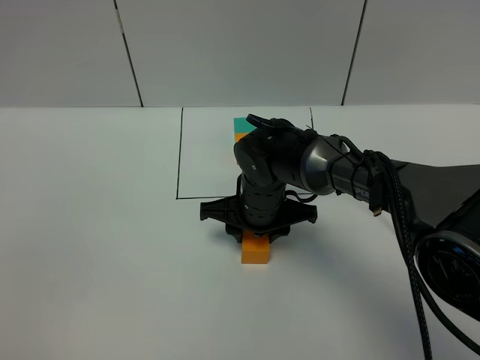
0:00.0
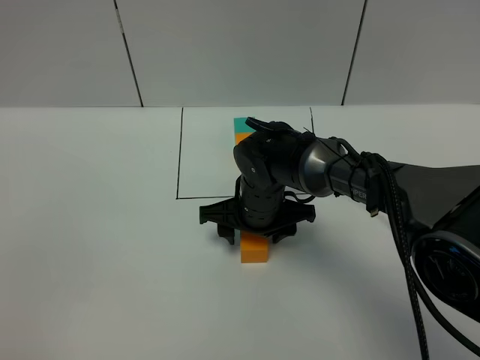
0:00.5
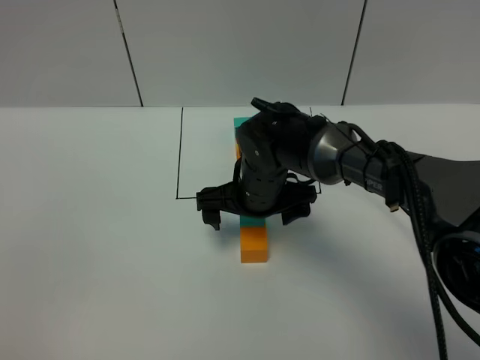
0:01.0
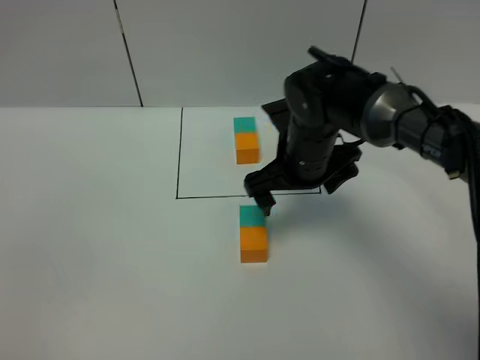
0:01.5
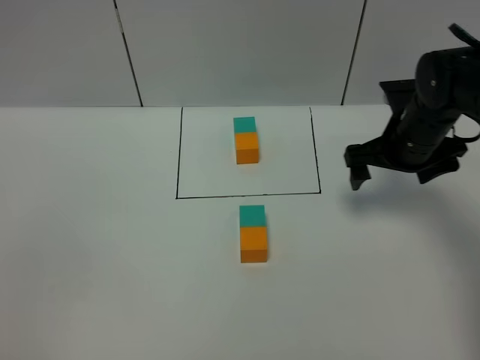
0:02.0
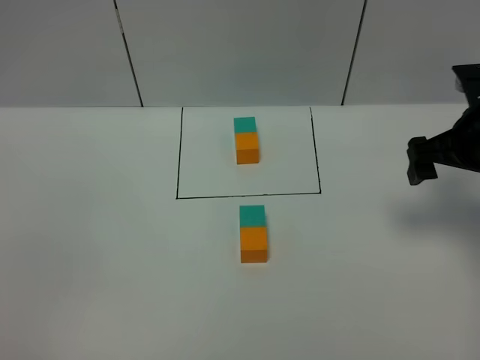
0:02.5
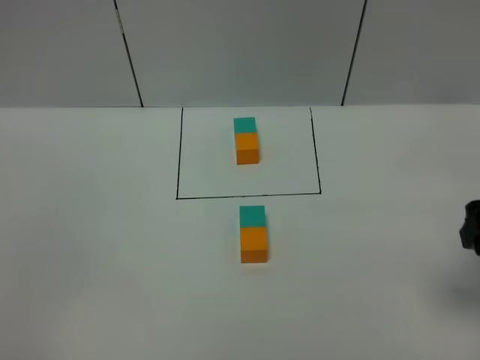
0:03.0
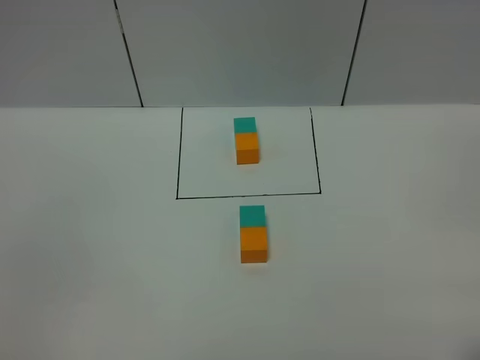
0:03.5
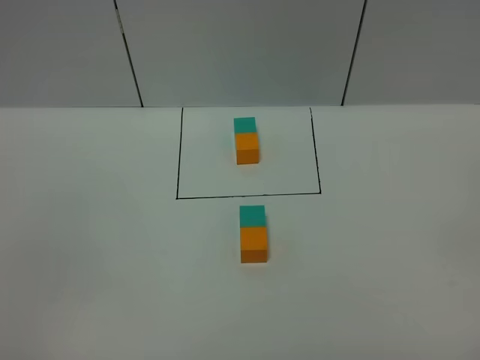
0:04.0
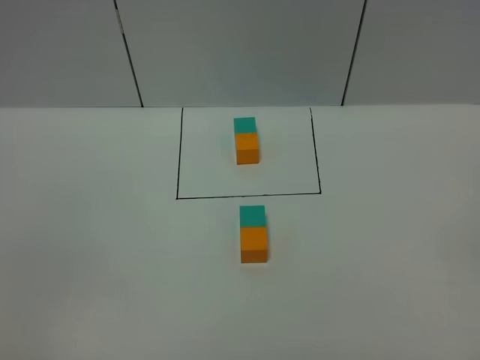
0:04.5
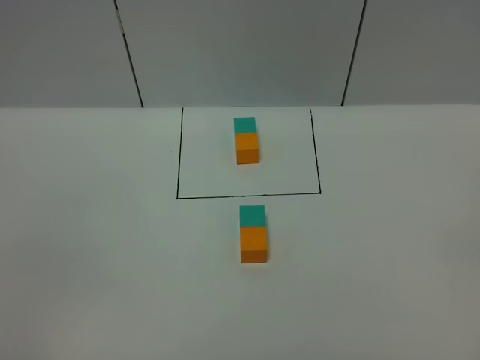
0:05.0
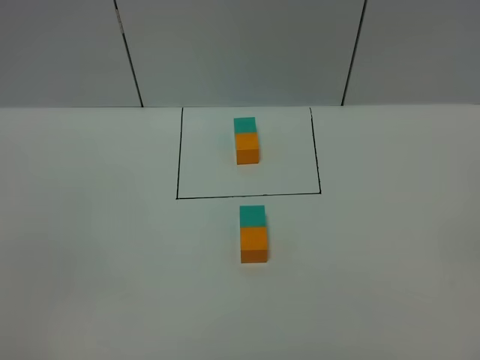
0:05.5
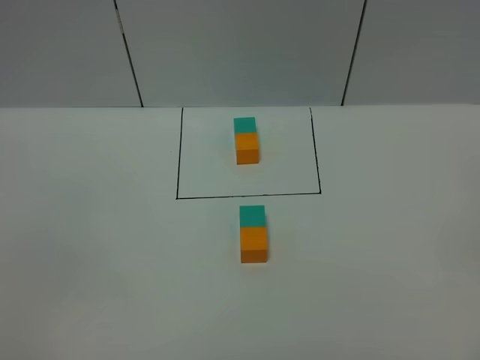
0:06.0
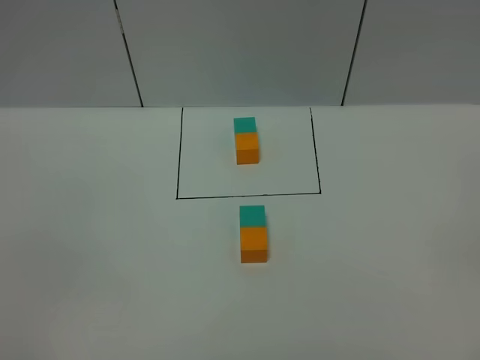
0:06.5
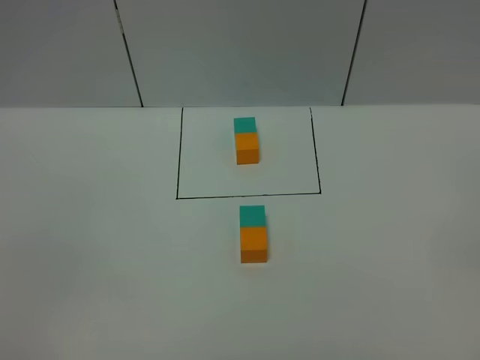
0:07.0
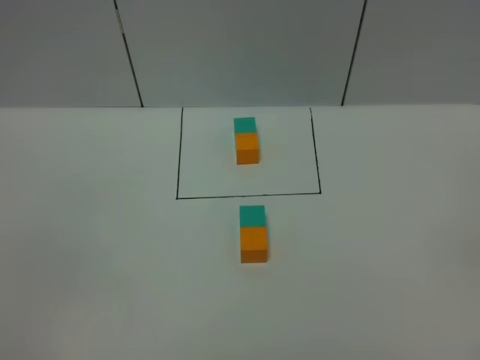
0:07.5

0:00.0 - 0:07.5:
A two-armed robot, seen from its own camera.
Task of the whole recording: According to the building block template in front, assemble the scattered blocks together.
0:00.0 - 0:02.0: The right gripper moves to the right, about 20 cm, and opens.
0:02.0 - 0:04.0: The right gripper heads backward, covering roughly 40 cm.

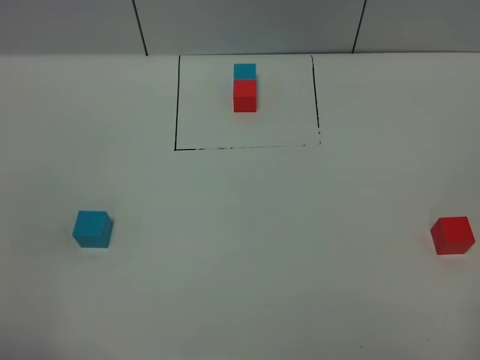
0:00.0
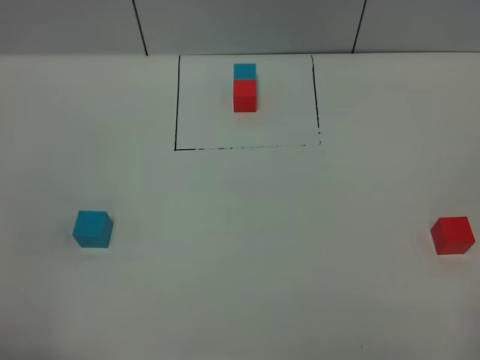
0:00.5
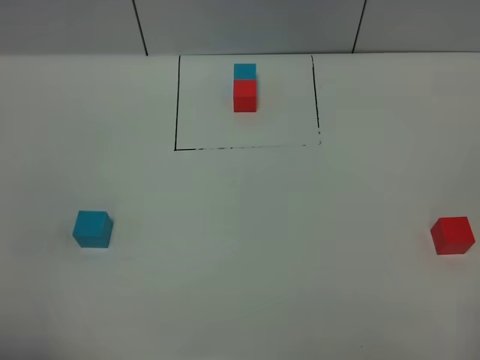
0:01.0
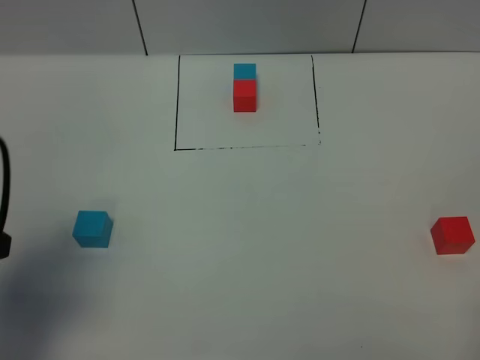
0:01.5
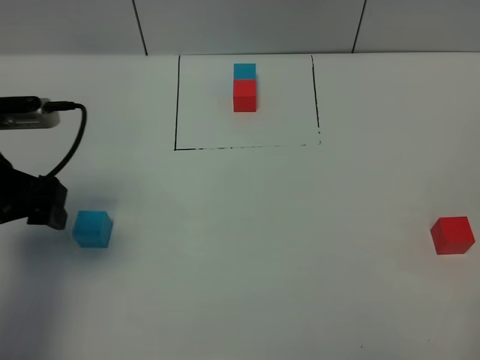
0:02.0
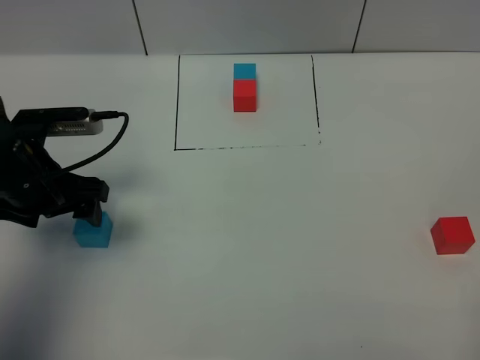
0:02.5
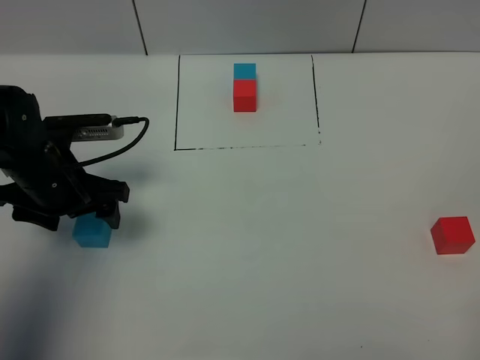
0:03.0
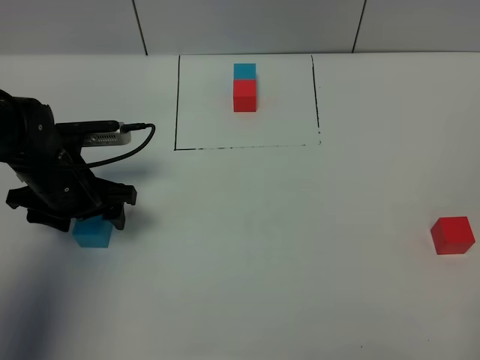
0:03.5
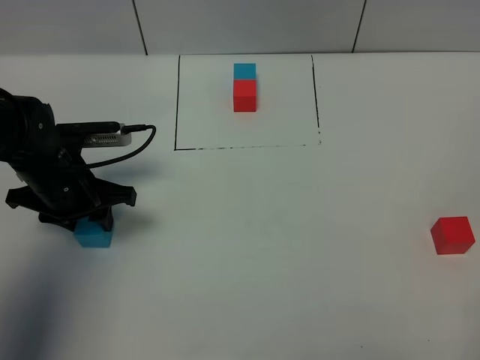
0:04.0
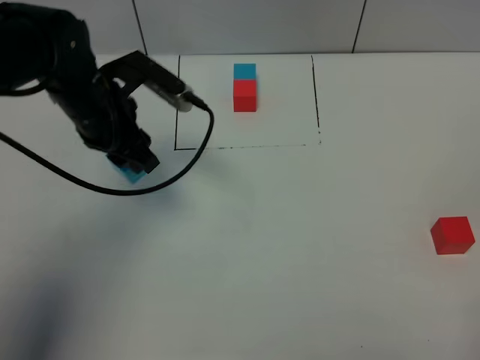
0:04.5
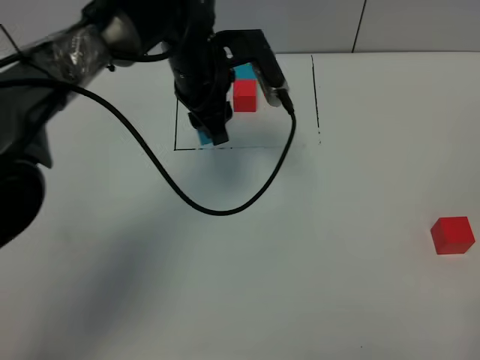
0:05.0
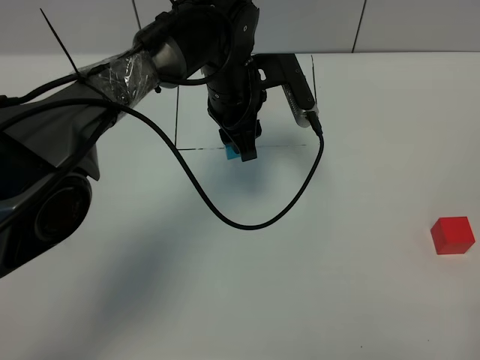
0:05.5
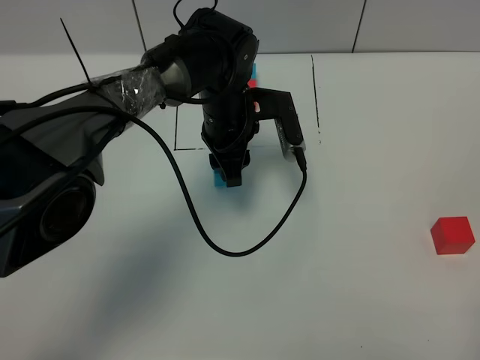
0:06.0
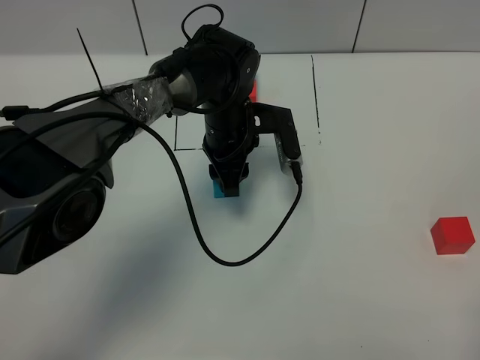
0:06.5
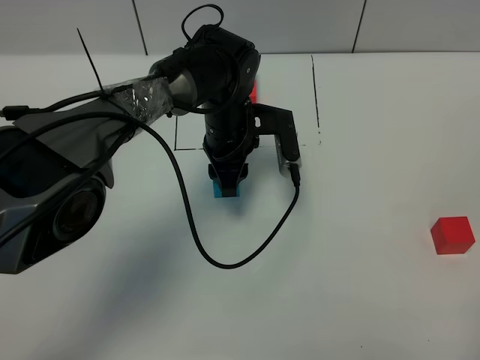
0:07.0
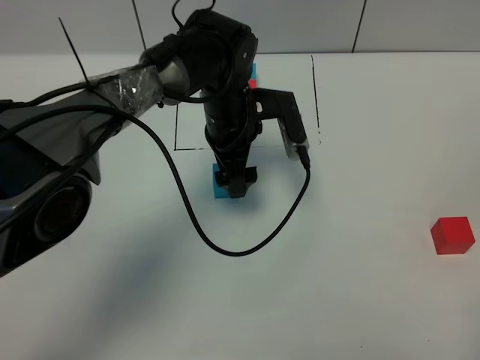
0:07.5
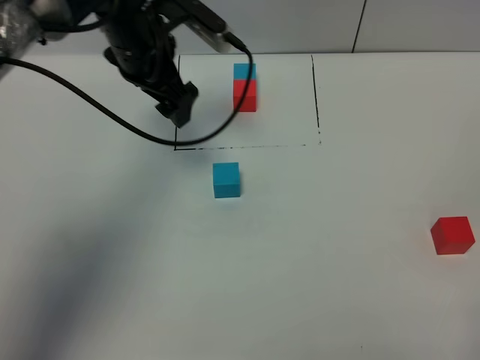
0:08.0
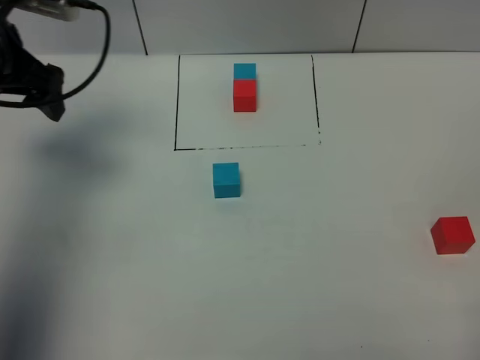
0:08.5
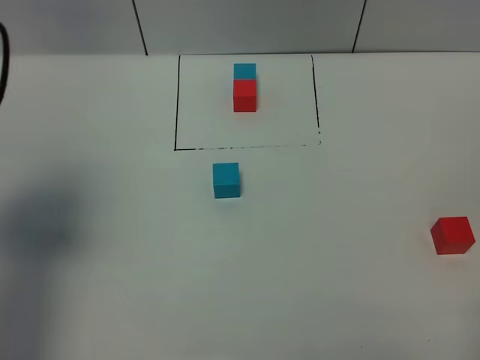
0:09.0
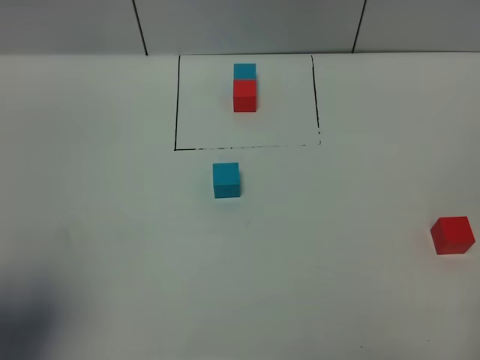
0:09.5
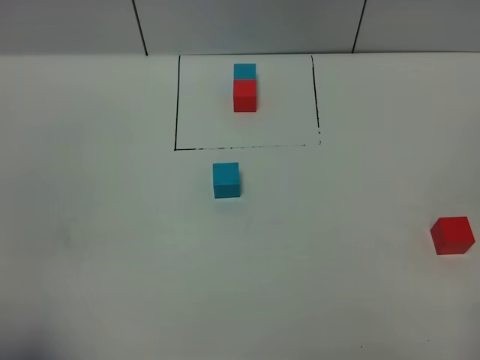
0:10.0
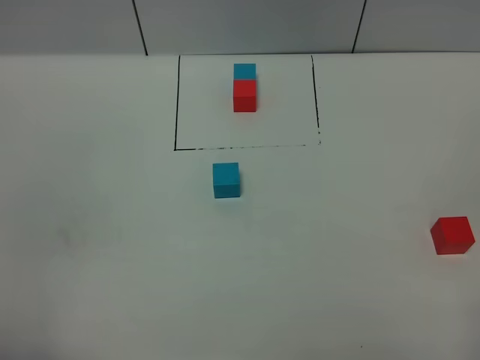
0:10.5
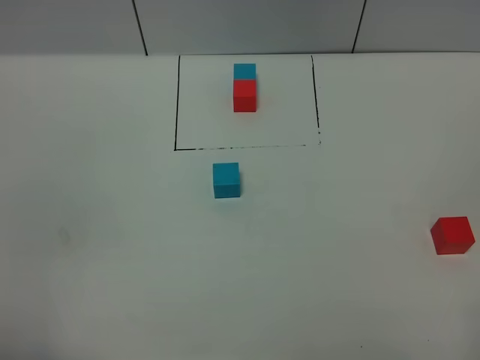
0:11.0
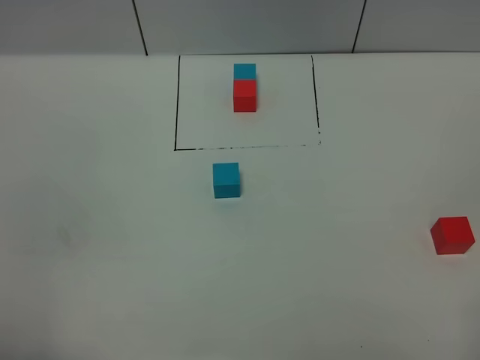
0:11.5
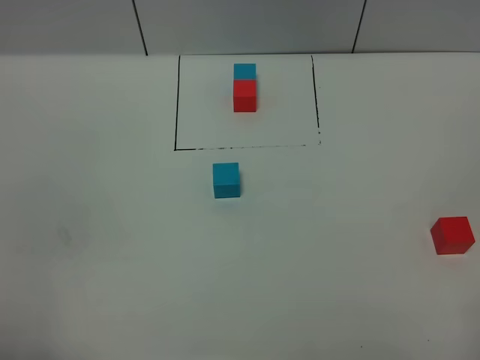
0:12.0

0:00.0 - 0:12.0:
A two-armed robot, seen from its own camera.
Task of the whole recording: According to the building block template in front, assemble the scattered blocks together.
Step, 0:01.5 - 0:07.0: Put the blue cube in the center of the table.
0:00.0 - 0:02.0: The left gripper moves forward, some 25 cm.
0:02.0 - 0:04.0: The left gripper heads downward and forward, covering about 10 cm, and closes.
0:04.0 - 0:06.0: The left gripper travels to the right and forward by approximately 25 cm.
0:06.0 - 0:08.0: The left gripper goes some 15 cm to the left and upward, and opens its fingers.
0:08.0 - 0:10.0: The left gripper moves backward, roughly 40 cm.

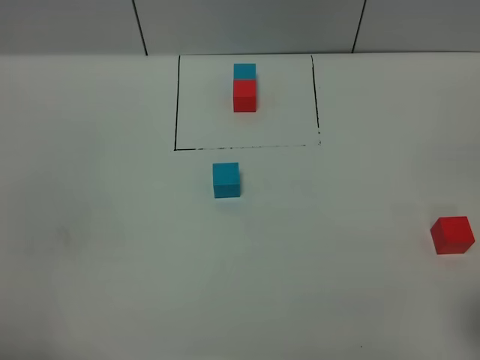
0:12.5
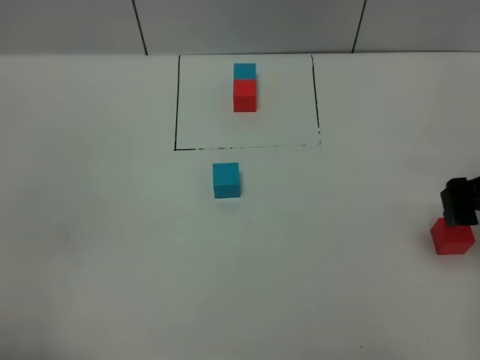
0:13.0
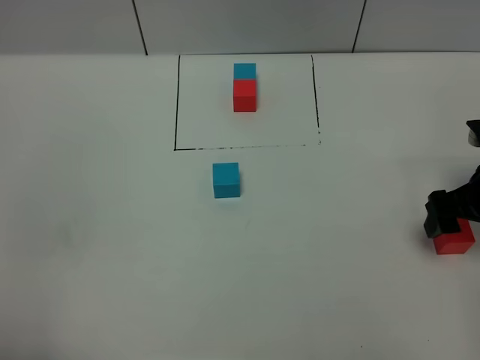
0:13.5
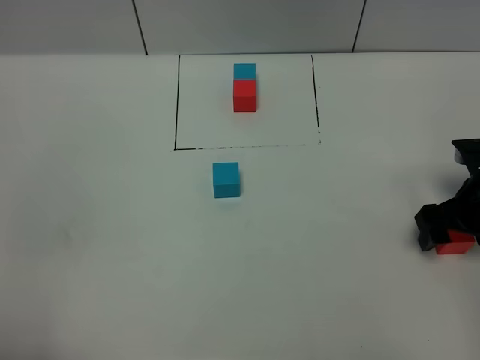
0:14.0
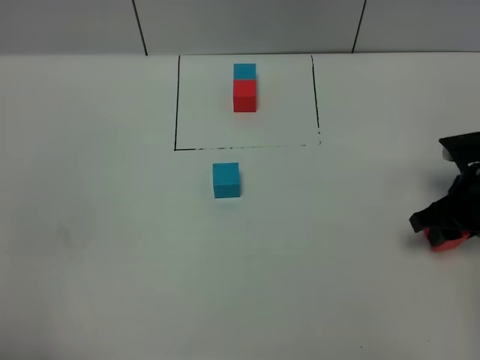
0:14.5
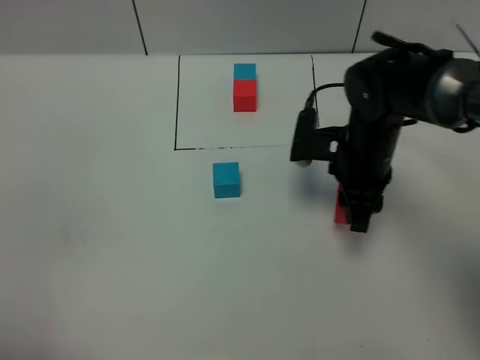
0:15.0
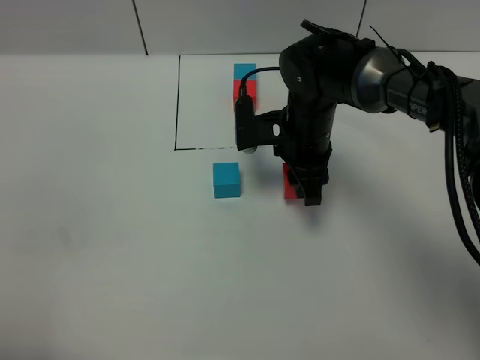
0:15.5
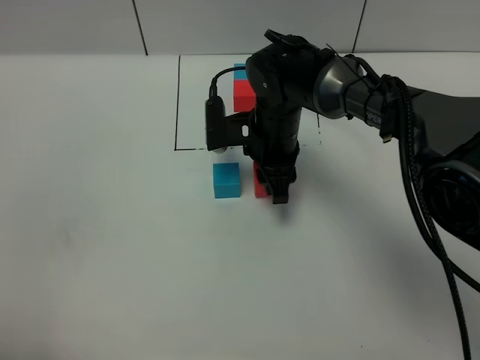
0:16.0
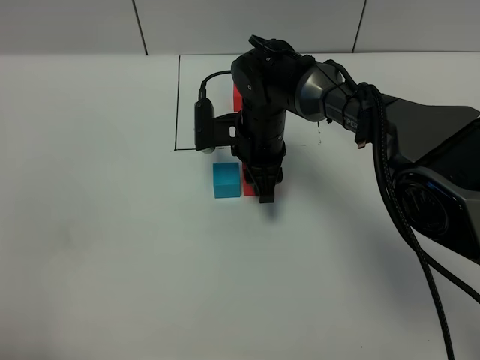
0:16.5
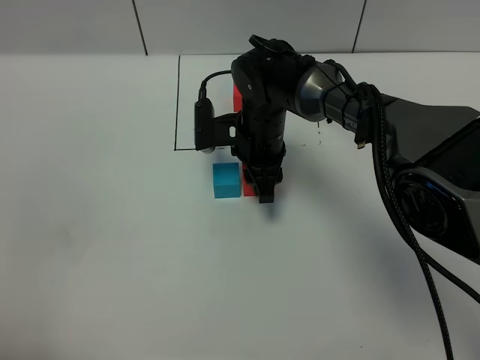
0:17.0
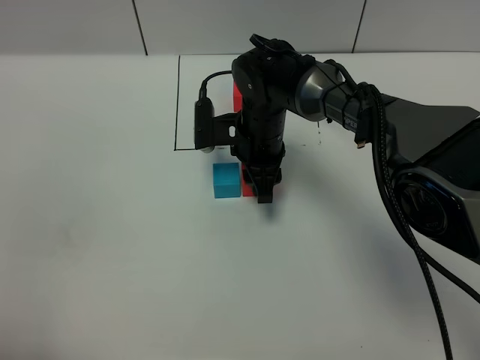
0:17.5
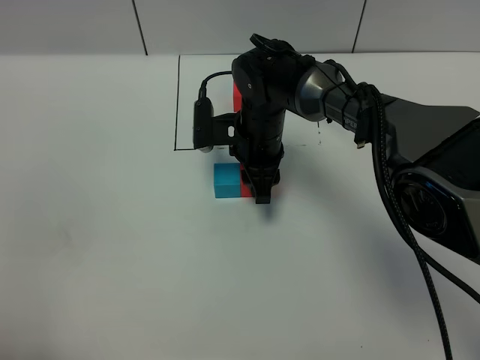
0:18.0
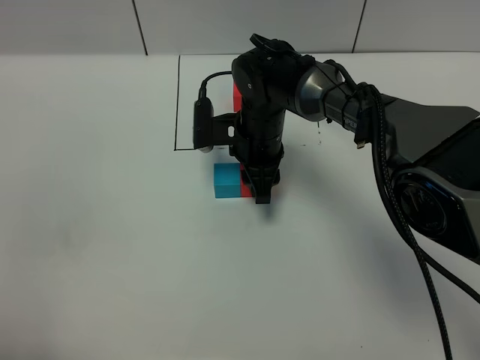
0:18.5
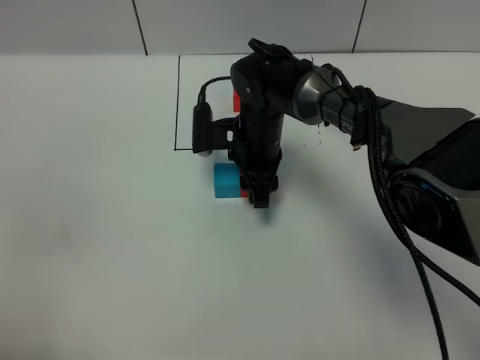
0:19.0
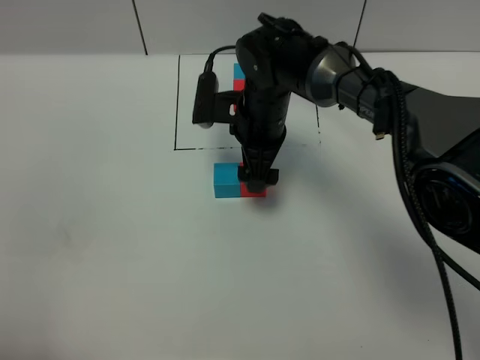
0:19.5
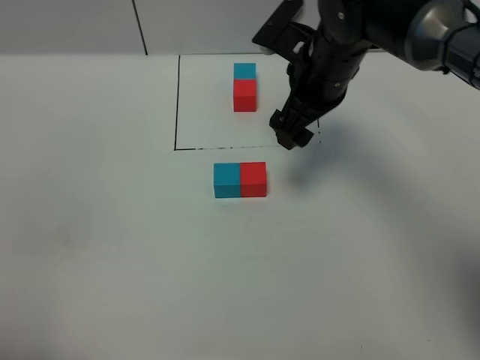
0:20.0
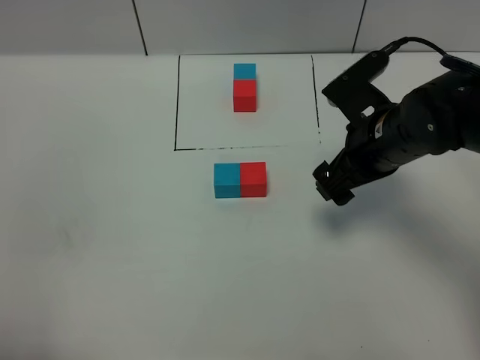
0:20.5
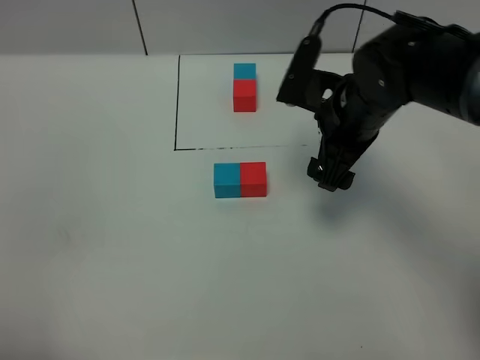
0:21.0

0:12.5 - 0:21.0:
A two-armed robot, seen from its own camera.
Task of the whole recording: According to the building block template in front, assemble the scattered blocks together.
Step, 0:12.5 - 0:19.0: Put the red cube on the right of the blue cube.
0:12.5 - 0:14.5: The right gripper goes roughly 25 cm forward and downward, and closes up.
0:14.5 - 0:16.5: The right gripper travels to the left and forward by roughly 30 cm.
0:16.5 - 0:19.0: Both grippers stay put.
0:19.0 - 0:21.0: The right gripper shifts roughly 15 cm upward, to the right and backward, and opens up.
